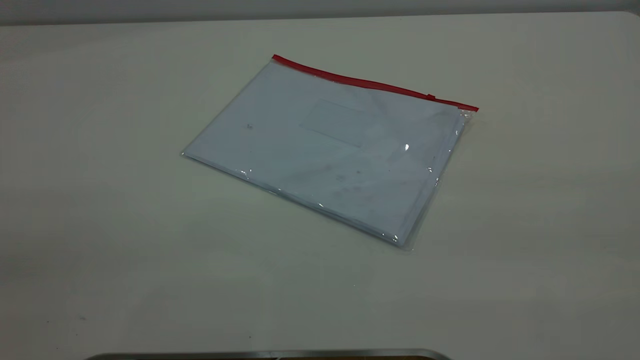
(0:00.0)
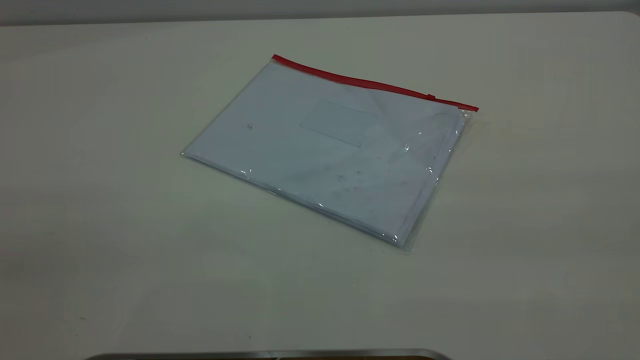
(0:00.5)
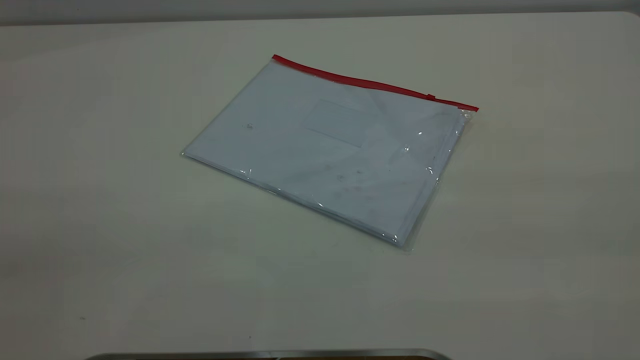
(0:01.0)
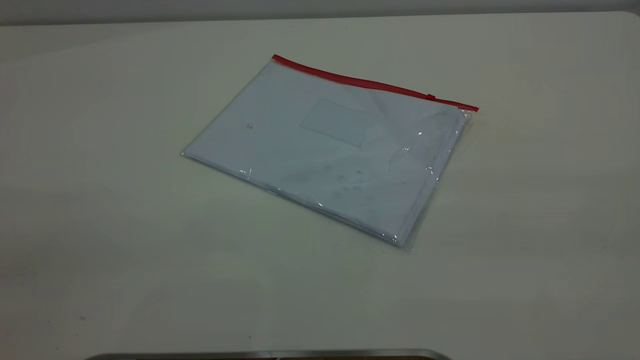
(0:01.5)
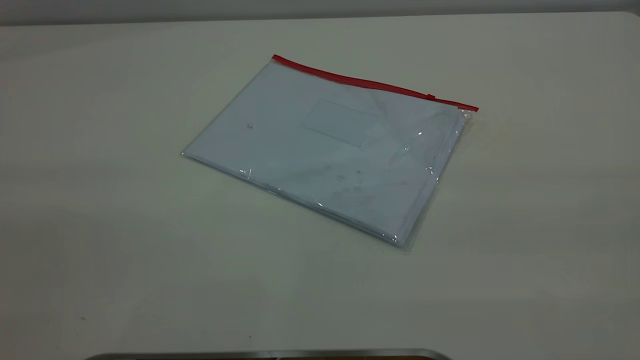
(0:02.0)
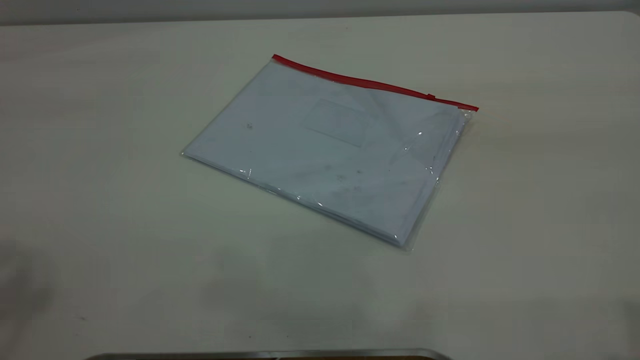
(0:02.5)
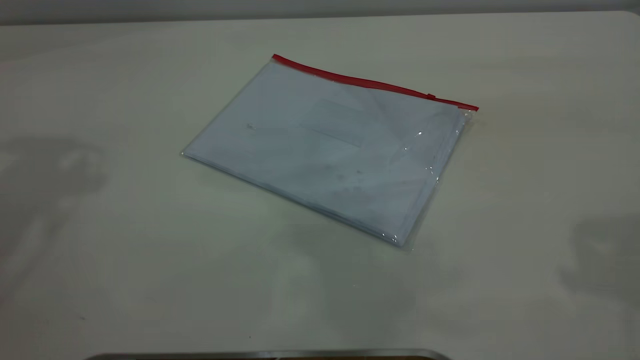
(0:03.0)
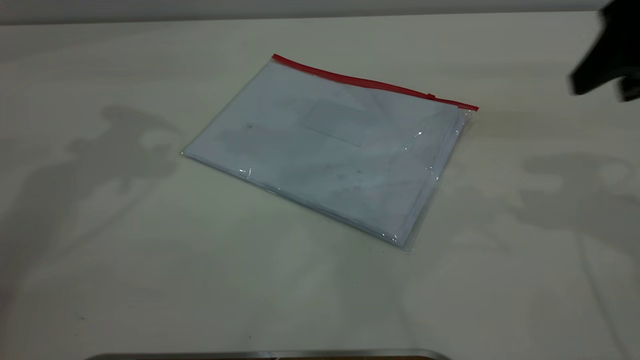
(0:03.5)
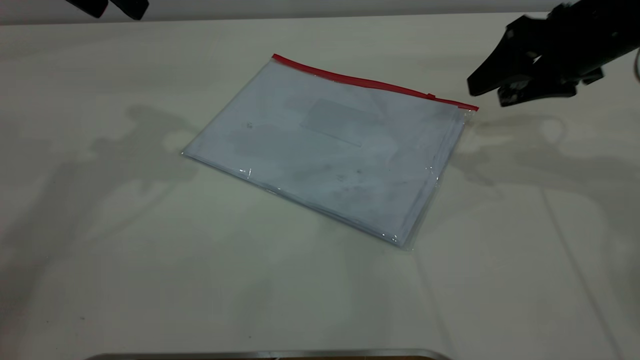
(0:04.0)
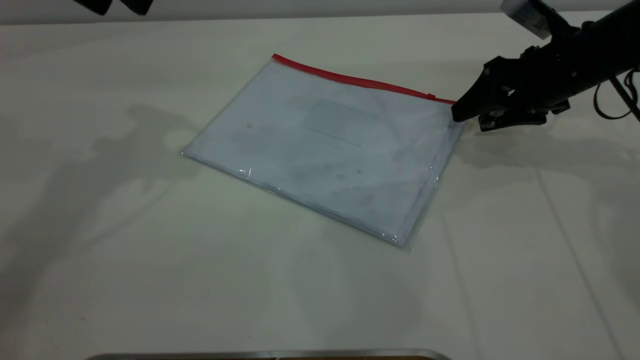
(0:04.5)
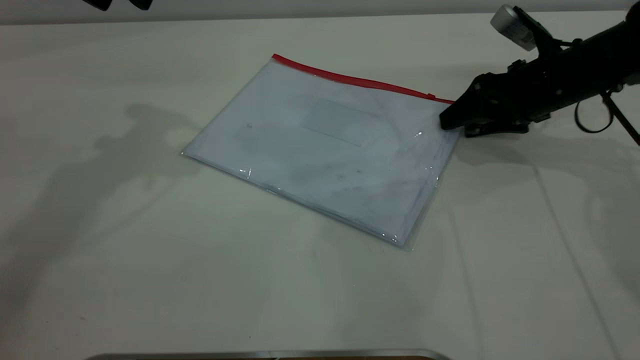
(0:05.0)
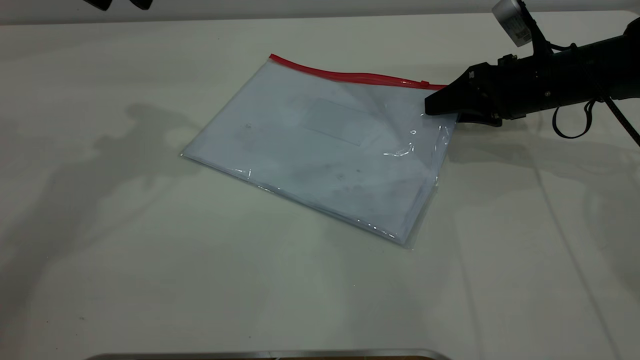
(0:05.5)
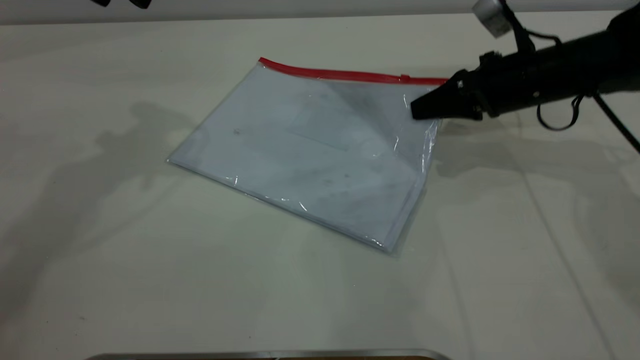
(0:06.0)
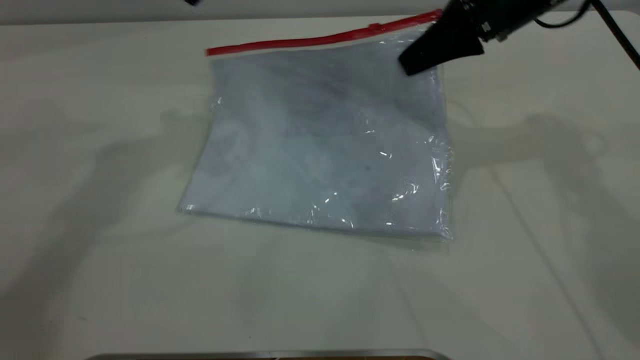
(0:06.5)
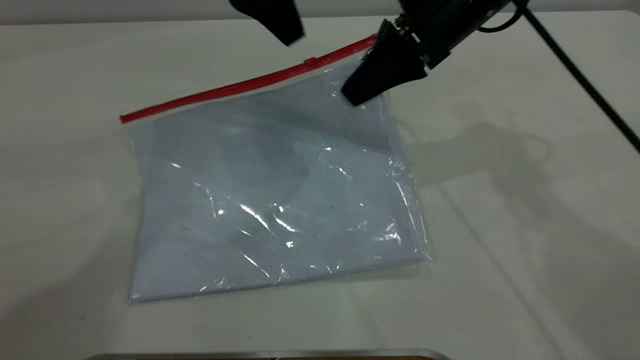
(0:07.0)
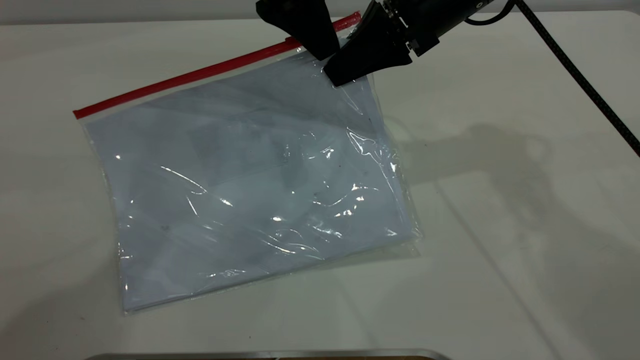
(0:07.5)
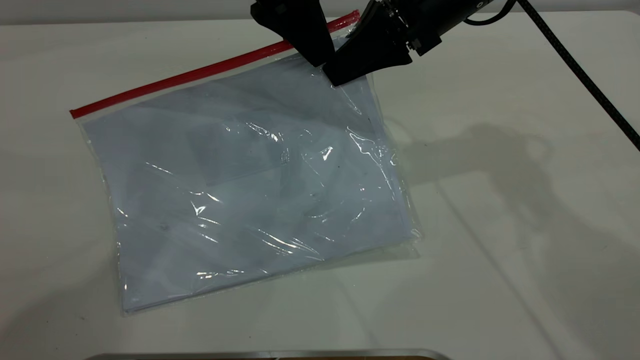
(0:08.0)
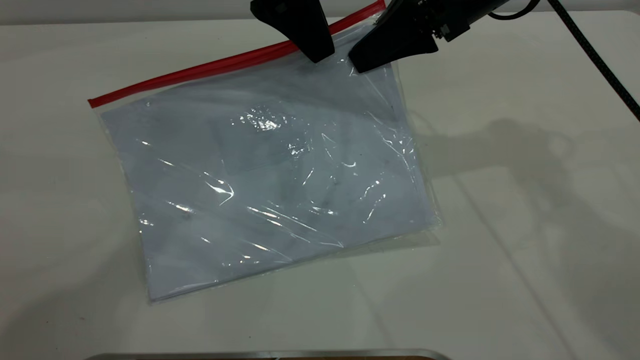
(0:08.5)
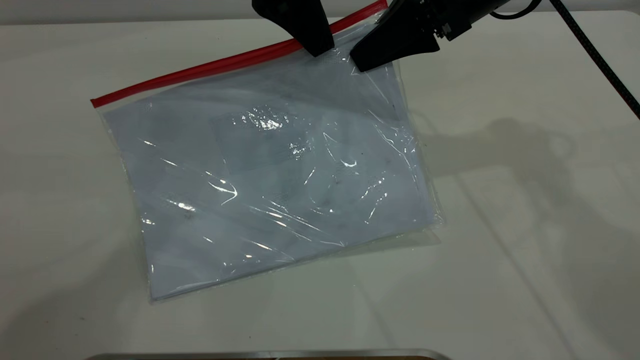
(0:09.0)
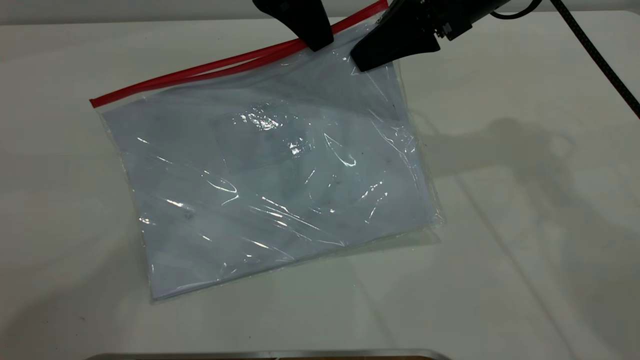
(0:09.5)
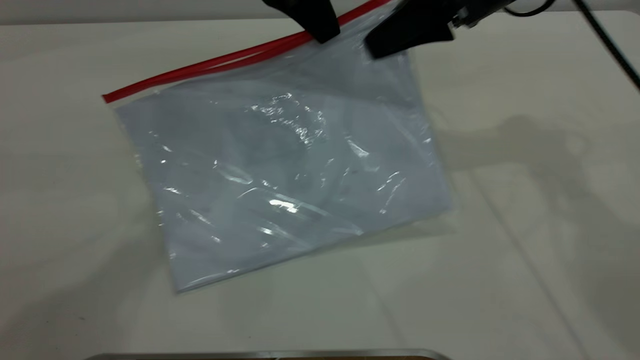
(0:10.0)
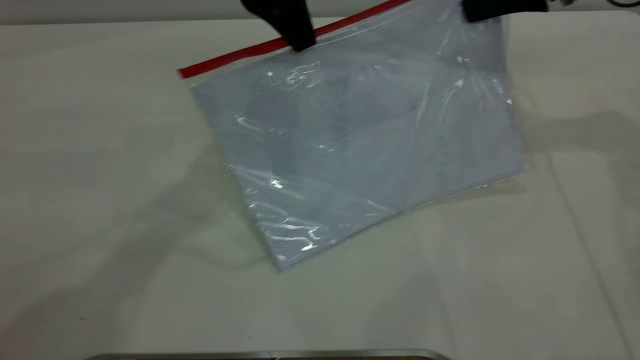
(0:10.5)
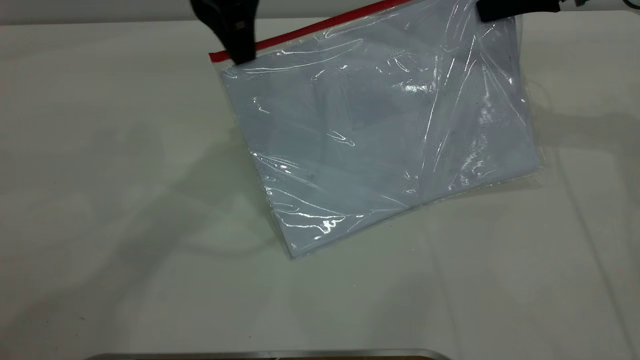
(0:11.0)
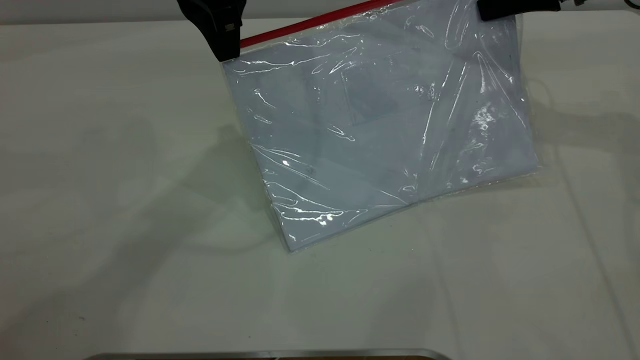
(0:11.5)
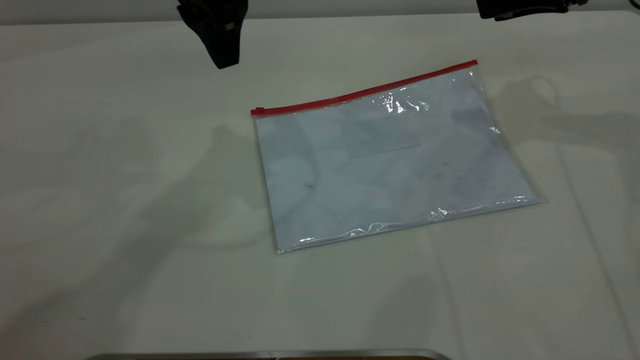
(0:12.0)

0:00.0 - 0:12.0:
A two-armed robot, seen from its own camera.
Step, 0:00.0 - 0:06.0: Pick up the transparent plastic bag with the right gripper.
Step, 0:06.5 - 0:11.0: Pulling up the zipper on the transparent plastic bag with the left gripper to close it.
0:02.0 - 0:04.0: The right gripper is displaced forward and downward by some 40 cm.
0:04.0 - 0:06.0: The right gripper shifts approximately 5 cm downward, and closes.
0:06.0 - 0:08.0: The left gripper travels to the right by some 15 cm. The right gripper moves upward and to the left, some 15 cm.
0:08.0 - 0:10.0: The left gripper closes its fingers; the right gripper moves to the right, roughly 5 cm.
0:10.0 - 0:12.0: The right gripper goes approximately 10 cm to the right, and opens up. The left gripper opens.

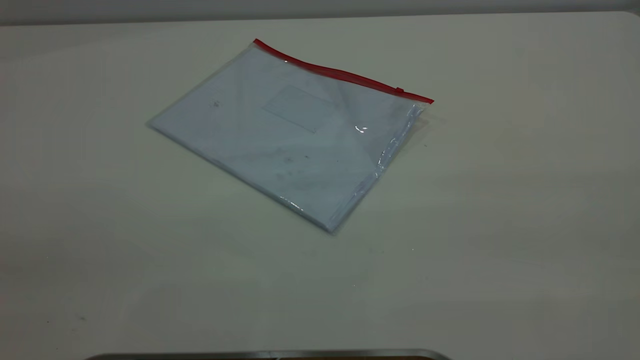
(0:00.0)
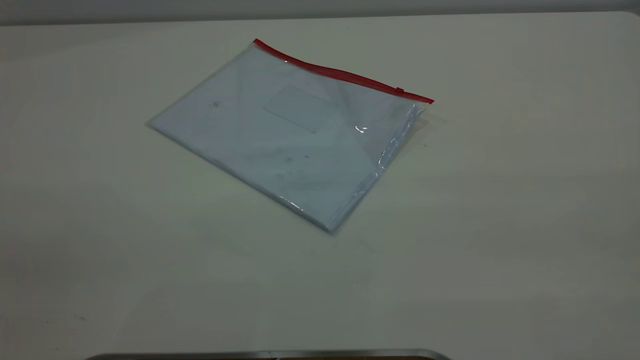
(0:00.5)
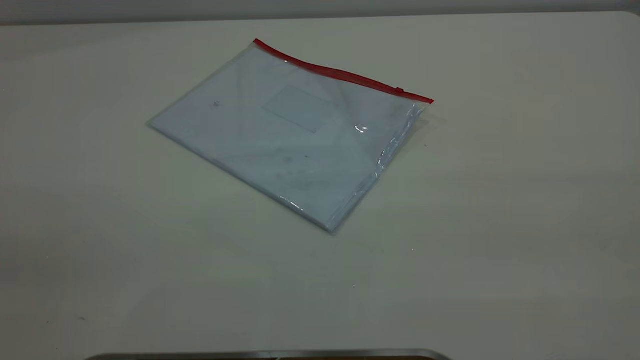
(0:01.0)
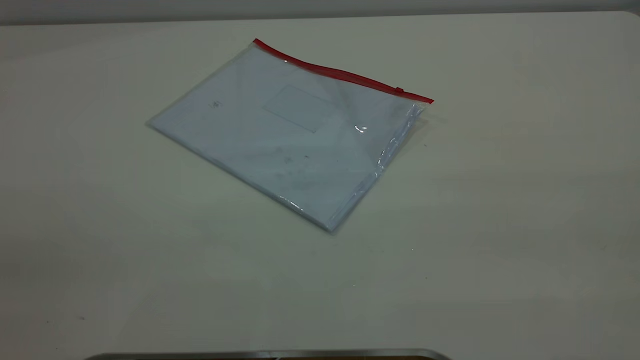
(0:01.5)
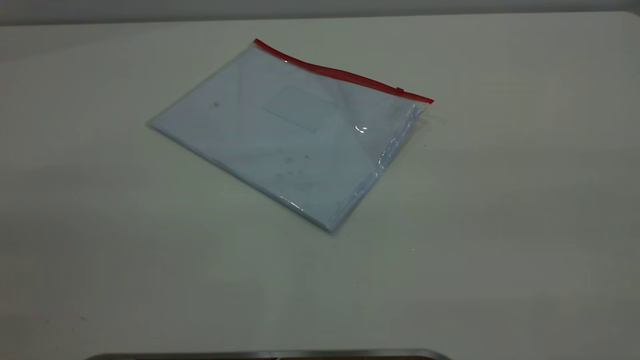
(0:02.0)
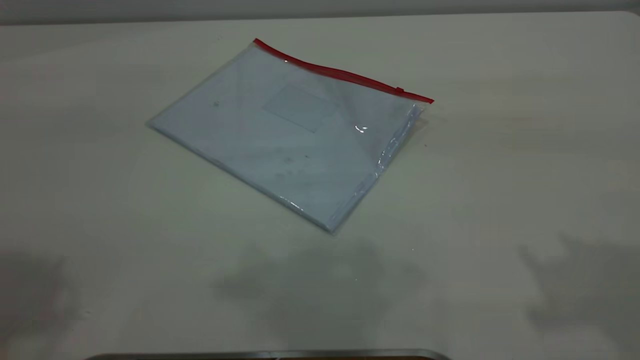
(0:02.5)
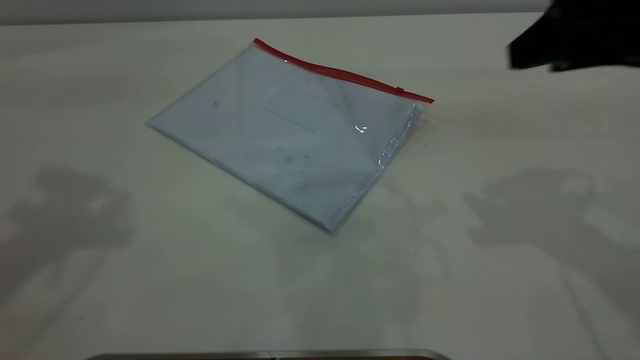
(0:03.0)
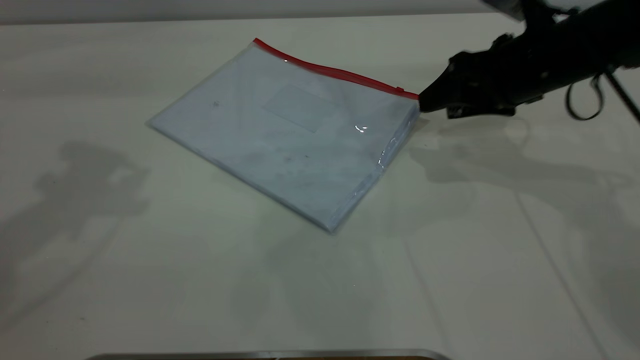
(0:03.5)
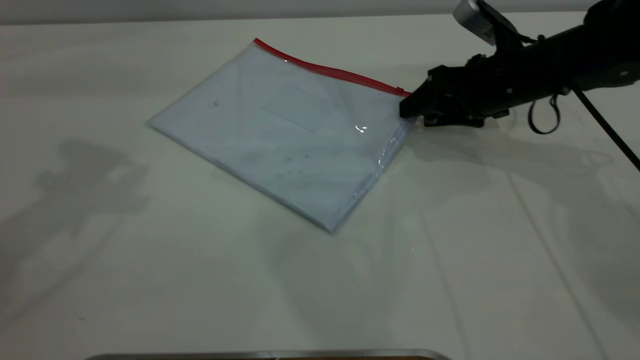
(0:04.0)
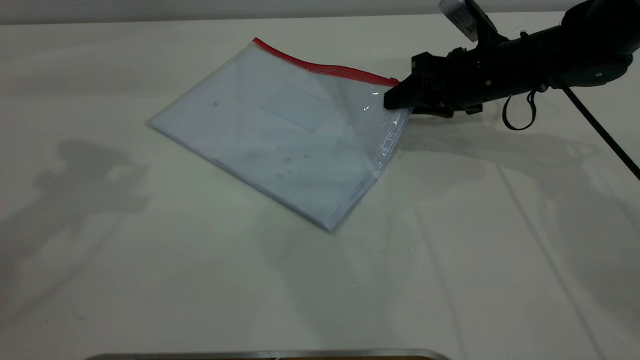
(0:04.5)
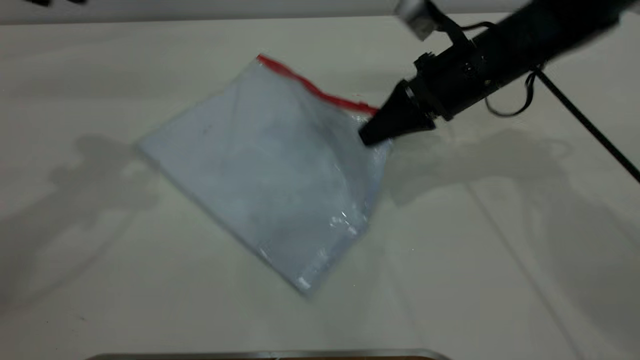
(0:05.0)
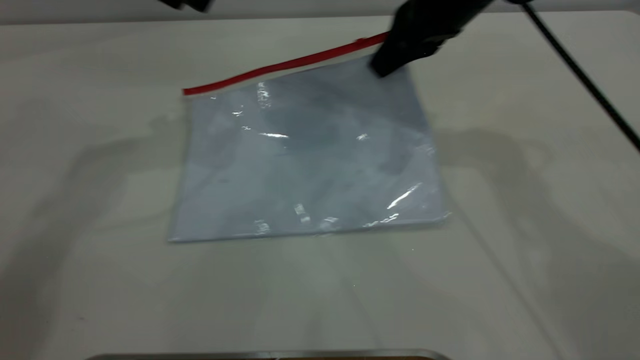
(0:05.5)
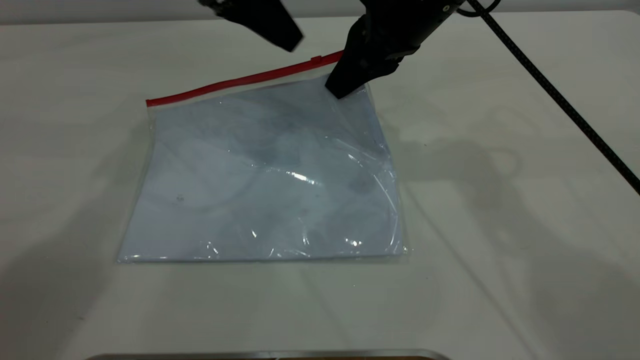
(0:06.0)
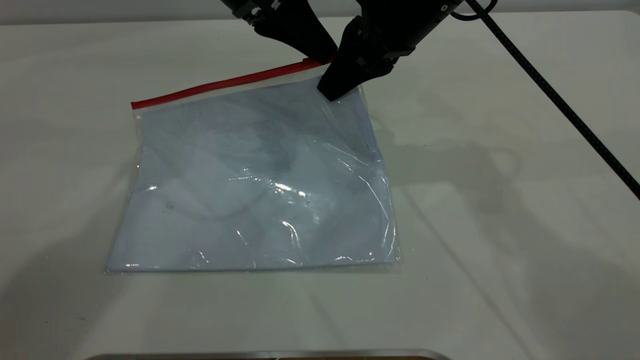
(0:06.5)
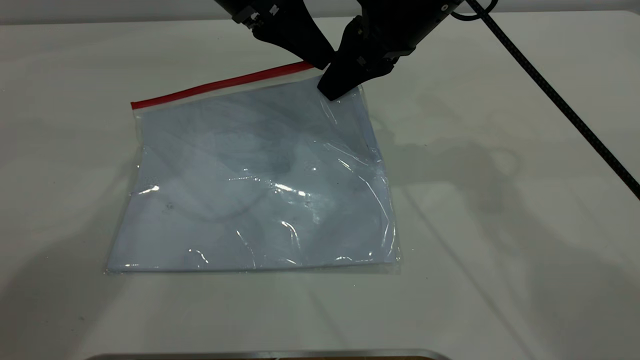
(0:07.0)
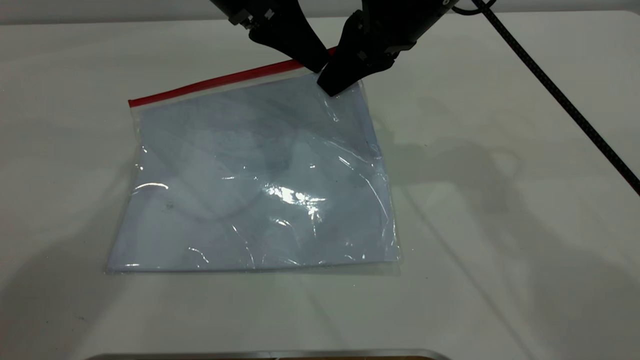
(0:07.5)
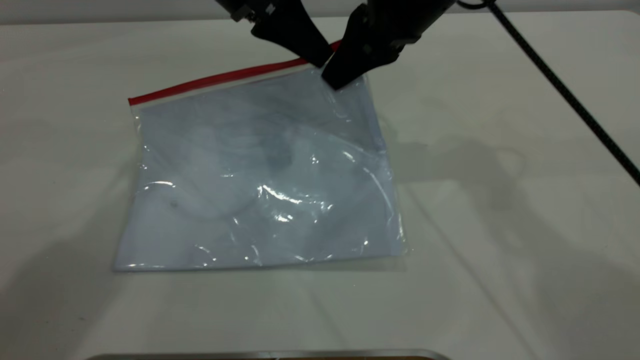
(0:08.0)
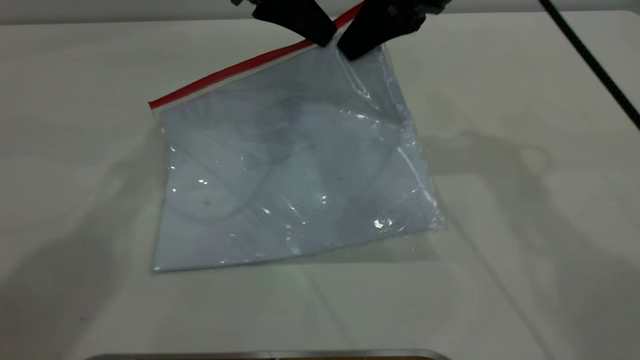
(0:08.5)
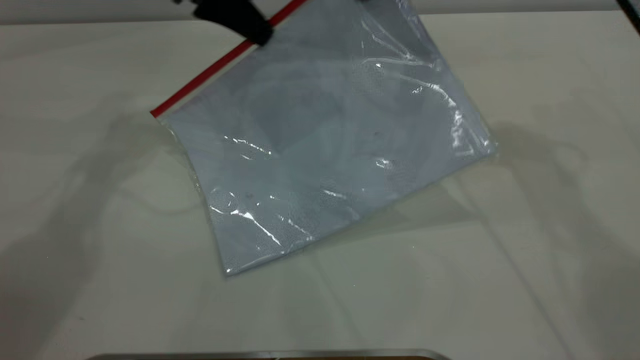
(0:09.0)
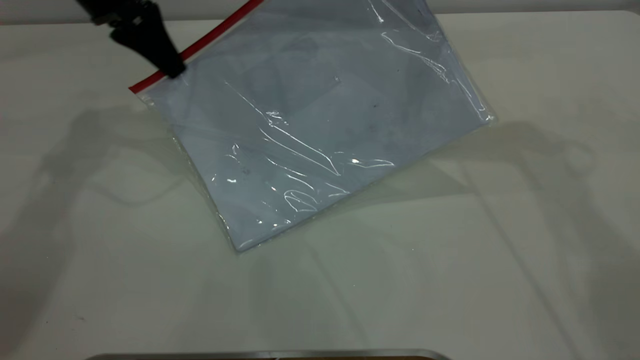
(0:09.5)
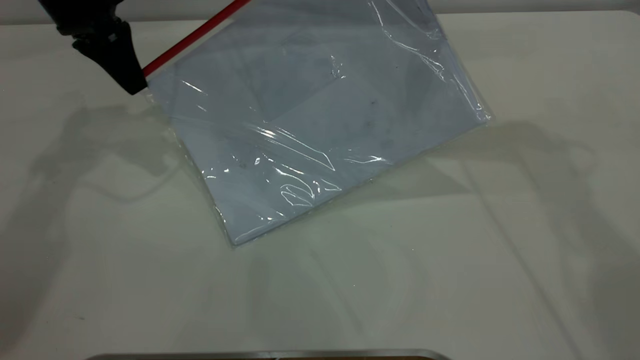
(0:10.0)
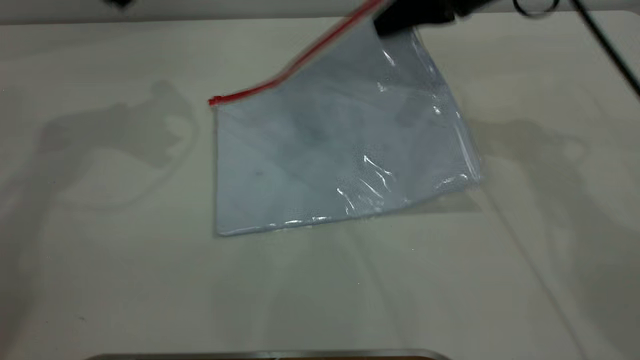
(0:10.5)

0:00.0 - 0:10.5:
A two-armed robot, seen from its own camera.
Step, 0:00.0 - 0:05.0: Pick up the transparent plastic bag with the right gripper.
Step, 0:05.5 - 0:10.0: Pulling up the zipper on the transparent plastic bag with the left gripper to close it.
0:02.0 - 0:04.0: The left gripper goes about 30 cm forward, while the right gripper travels forward and downward by some 50 cm.
0:04.0 - 0:06.5: The right gripper heads upward and to the left, covering roughly 20 cm, and closes its fingers. Meanwhile the left gripper travels to the right, downward and forward by approximately 25 cm.
0:06.5 - 0:08.5: The right gripper moves some 5 cm; the left gripper closes its fingers.
0:08.5 - 0:10.5: The left gripper is displaced to the left and upward by roughly 15 cm, and opens its fingers. The right gripper shifts roughly 10 cm downward and to the right.
